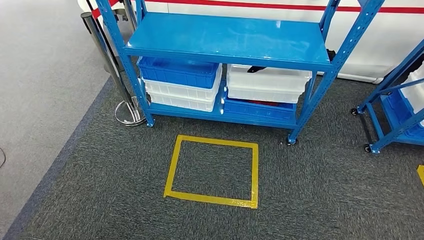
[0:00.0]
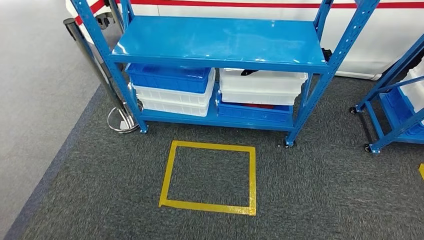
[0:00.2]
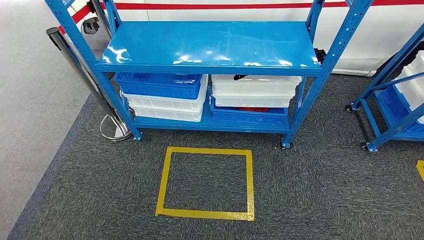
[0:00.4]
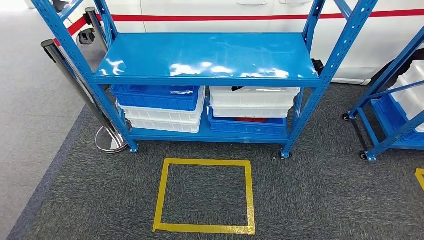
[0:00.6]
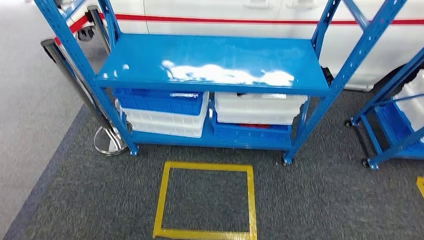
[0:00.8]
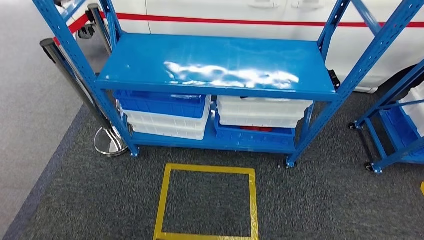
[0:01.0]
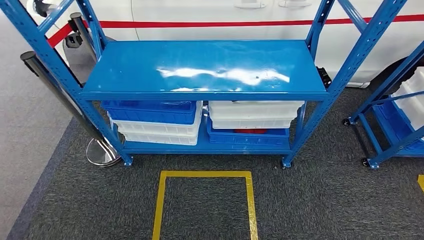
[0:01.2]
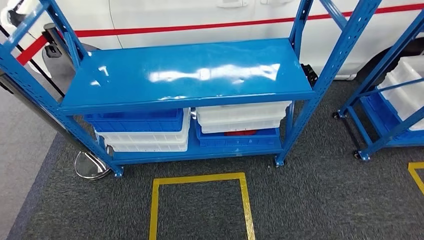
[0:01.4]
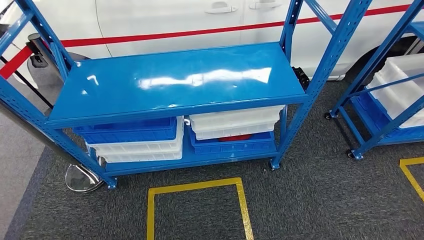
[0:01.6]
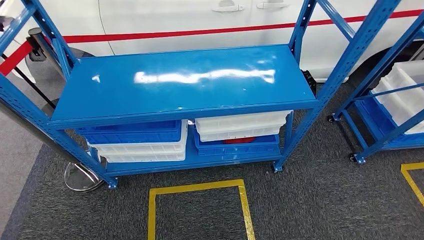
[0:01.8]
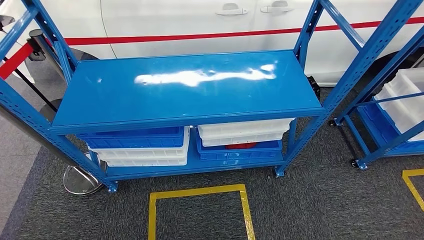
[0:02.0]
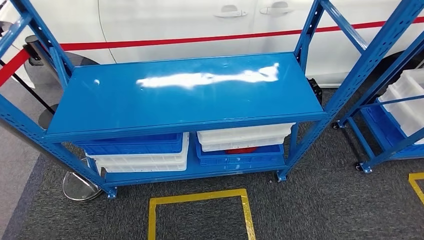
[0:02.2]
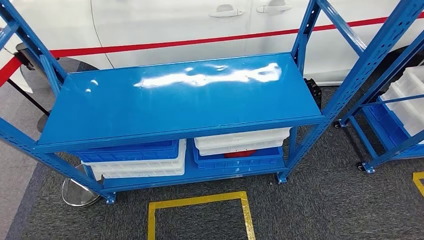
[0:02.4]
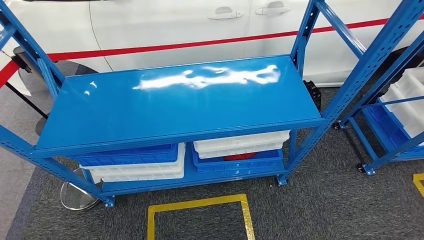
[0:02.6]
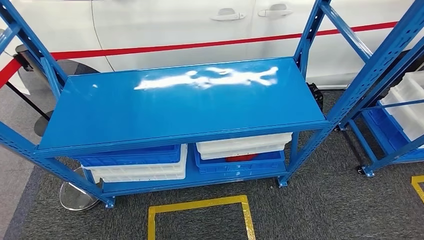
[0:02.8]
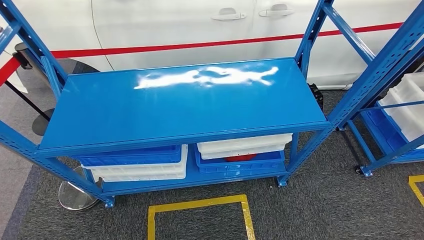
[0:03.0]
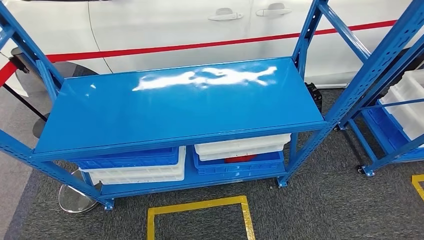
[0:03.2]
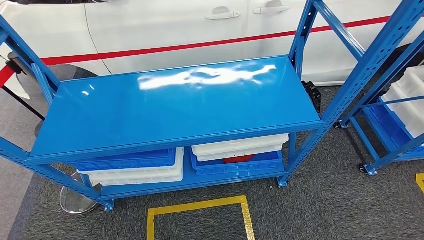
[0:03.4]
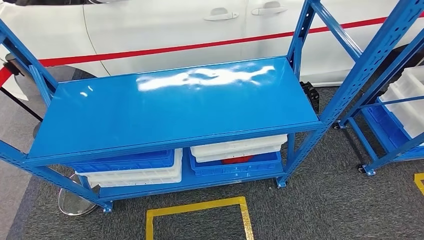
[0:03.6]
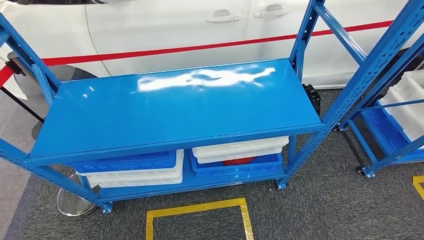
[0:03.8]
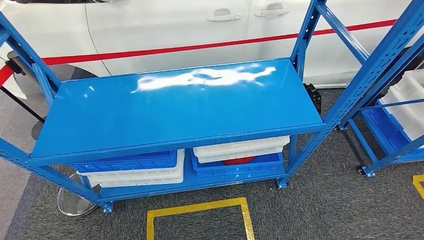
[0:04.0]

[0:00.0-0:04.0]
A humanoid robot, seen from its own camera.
Step, 0:00.0 to 0:04.0: Move to the initial position of the shelf.
